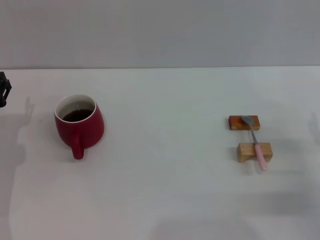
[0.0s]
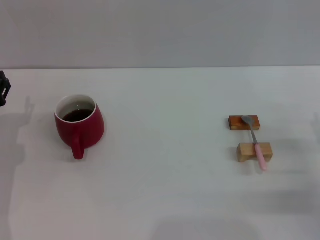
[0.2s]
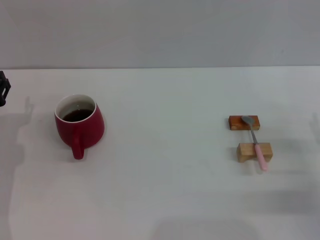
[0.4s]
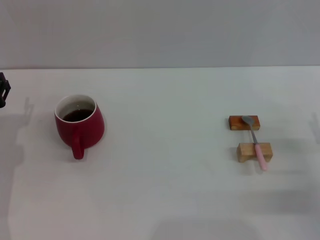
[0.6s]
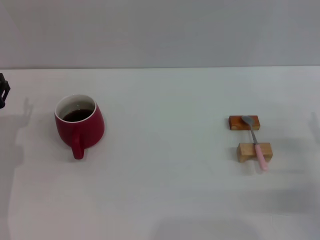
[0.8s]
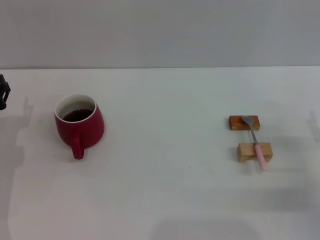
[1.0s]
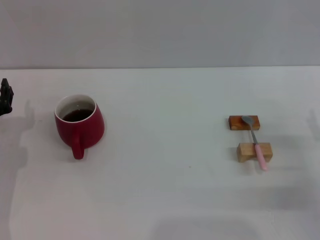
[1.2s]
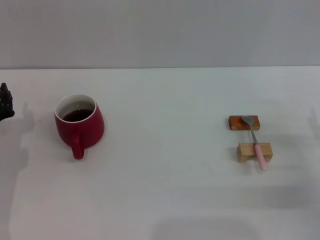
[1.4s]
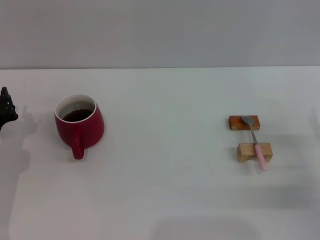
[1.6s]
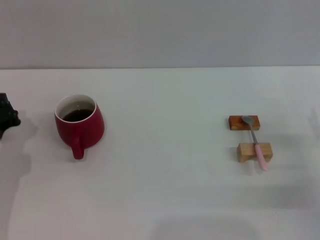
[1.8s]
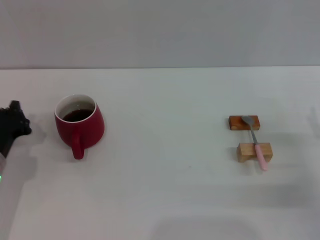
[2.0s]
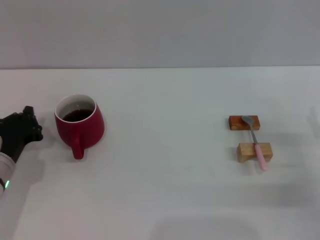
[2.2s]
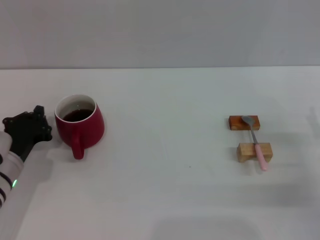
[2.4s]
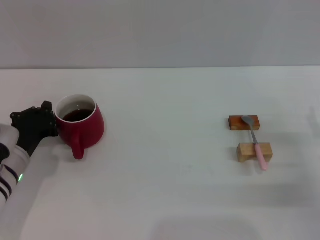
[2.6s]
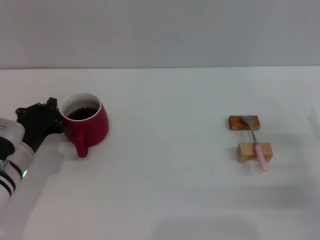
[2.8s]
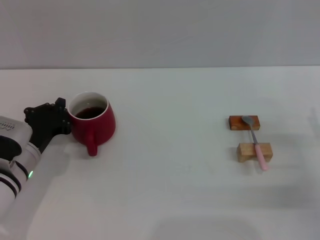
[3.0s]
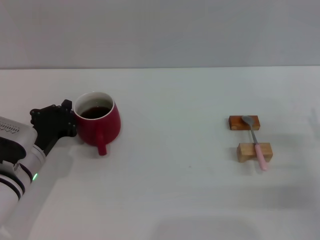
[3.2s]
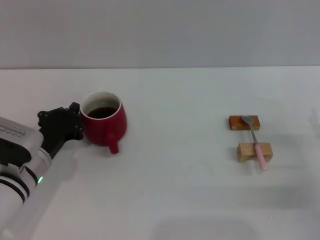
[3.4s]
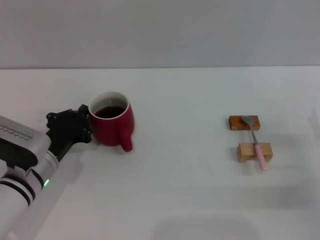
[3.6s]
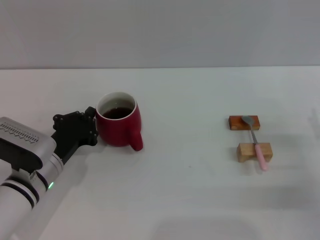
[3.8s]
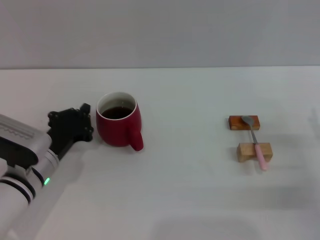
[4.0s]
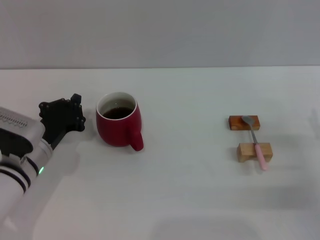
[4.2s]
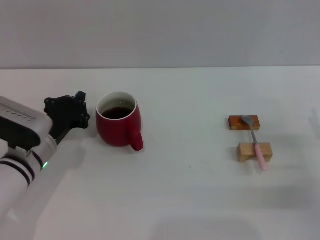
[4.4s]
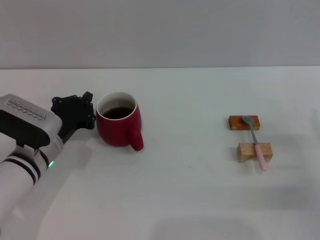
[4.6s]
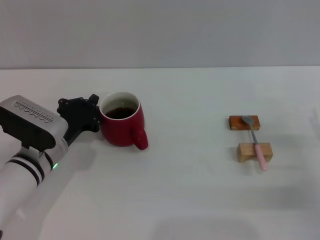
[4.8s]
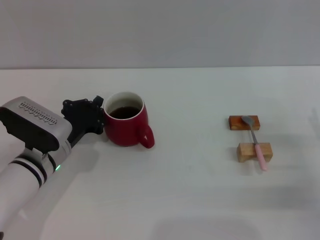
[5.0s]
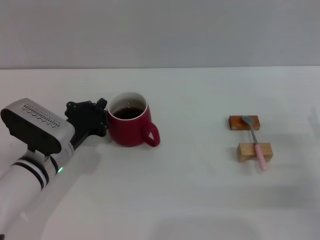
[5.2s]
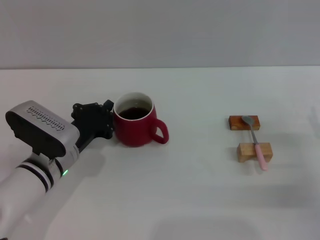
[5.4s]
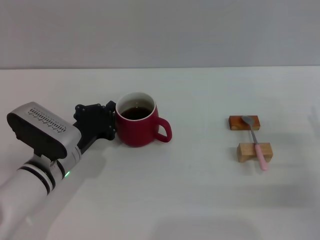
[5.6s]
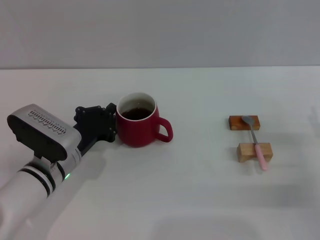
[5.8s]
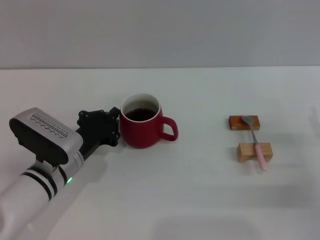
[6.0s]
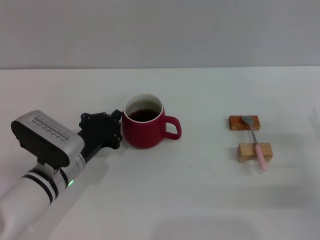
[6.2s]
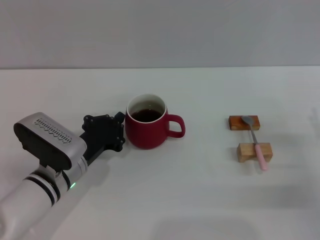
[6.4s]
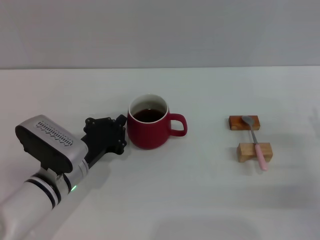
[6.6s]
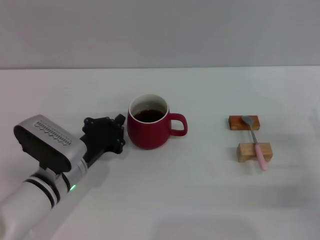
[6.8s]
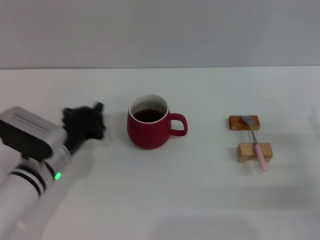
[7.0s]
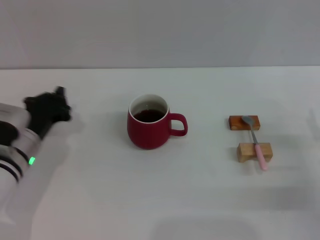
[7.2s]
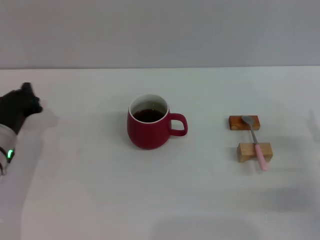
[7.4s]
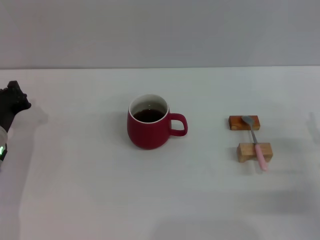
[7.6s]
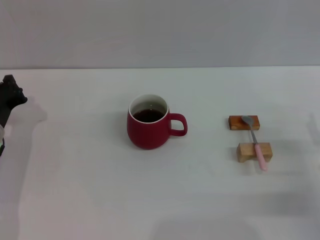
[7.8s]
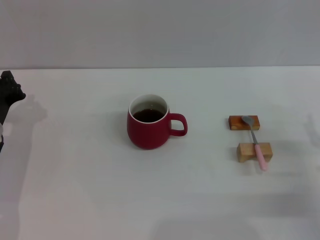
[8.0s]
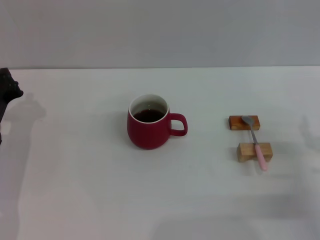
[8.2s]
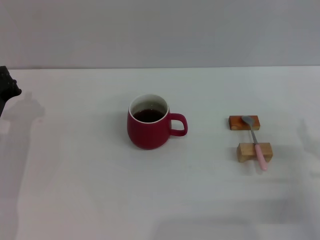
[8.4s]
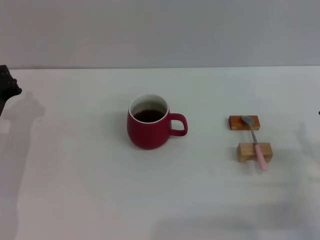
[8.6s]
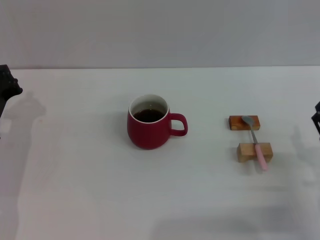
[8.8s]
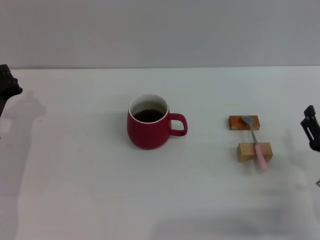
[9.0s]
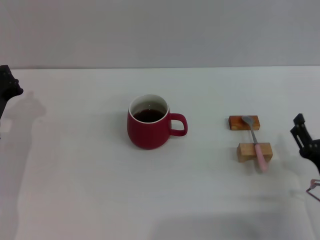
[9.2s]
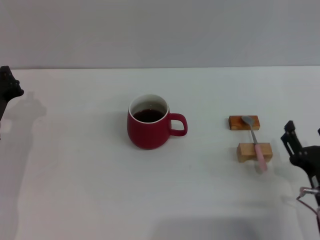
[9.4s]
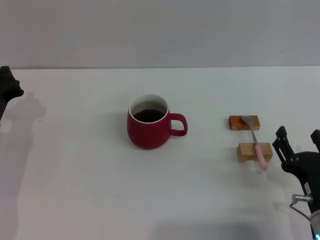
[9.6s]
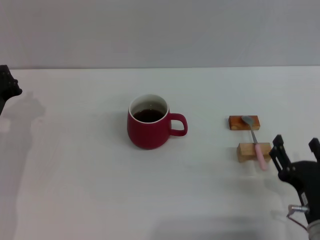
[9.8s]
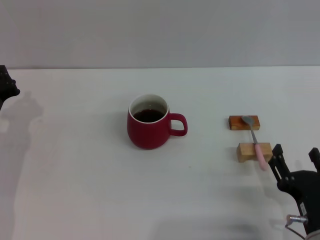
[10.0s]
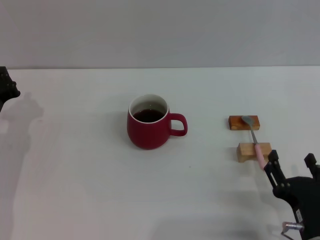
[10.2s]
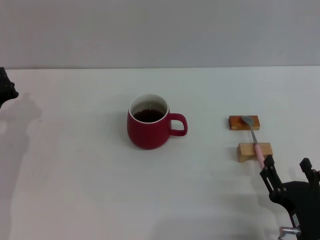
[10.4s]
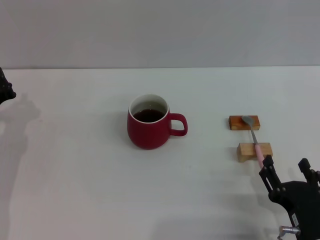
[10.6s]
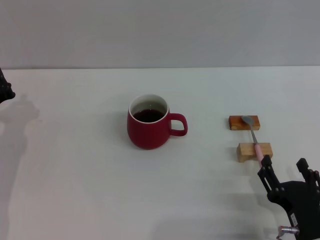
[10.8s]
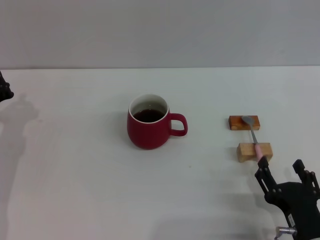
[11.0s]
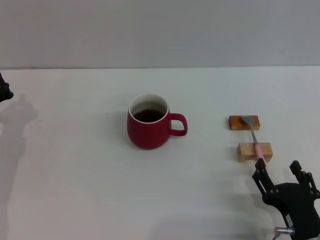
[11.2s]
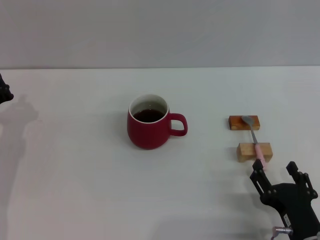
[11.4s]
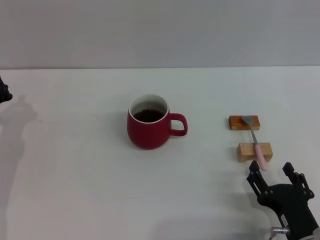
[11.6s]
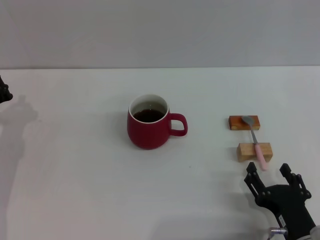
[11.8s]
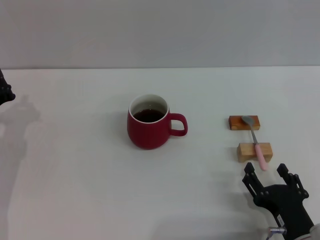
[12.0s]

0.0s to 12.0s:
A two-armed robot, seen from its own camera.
Task of the whole recording: Move the red cup to the center, lift the pink spoon, stir it three times in the cup, and put the spoon into the cup.
Step, 0.0s to 7.0s: Move the cup with coffee to the center of view with the left gripper.
0.0s to 1.6s: The left gripper closes its fingers.
1.6s to 3.0s: The left gripper moves to the right, about 5 cm, and closes up.
3.0s to 6.0s: The grippers stay close to where they were, moving slightly.
6.0s to 7.6s: The left gripper shifts roughly 10 cm to the left.
7.6s to 9.0s: The right gripper shifts by some 5 cm.
9.0s to 10.4s: The right gripper heads backward and to the left, covering roughly 10 cm.
10.4s to 12.0s: There are only small adjustments of the grippers.

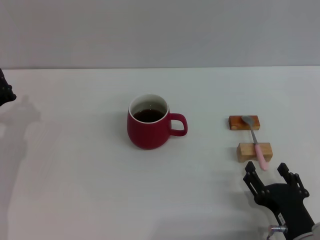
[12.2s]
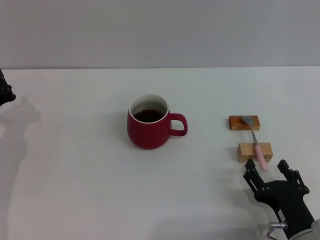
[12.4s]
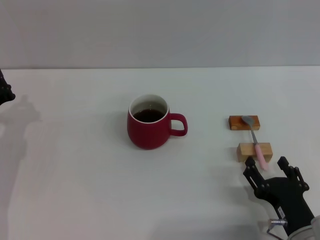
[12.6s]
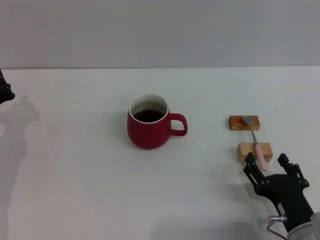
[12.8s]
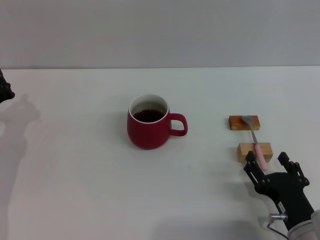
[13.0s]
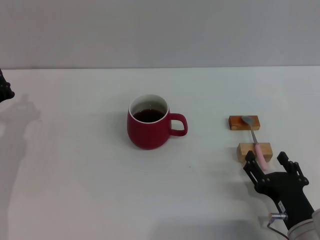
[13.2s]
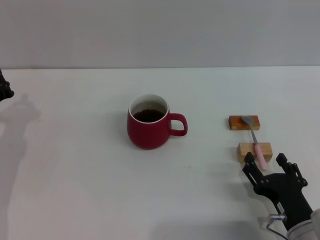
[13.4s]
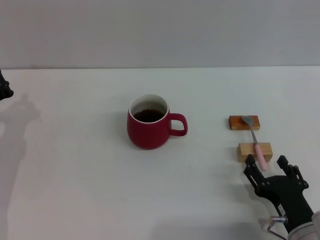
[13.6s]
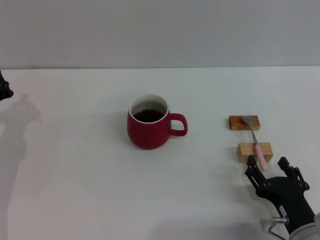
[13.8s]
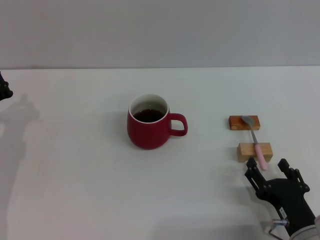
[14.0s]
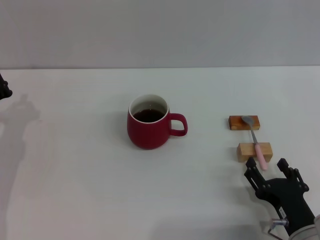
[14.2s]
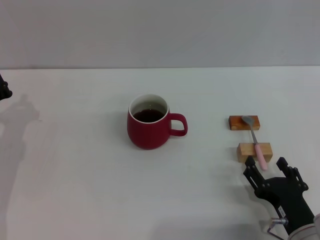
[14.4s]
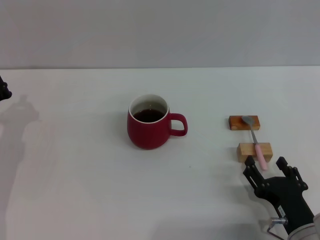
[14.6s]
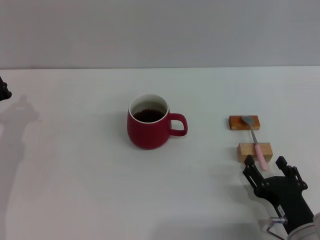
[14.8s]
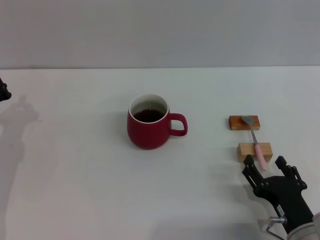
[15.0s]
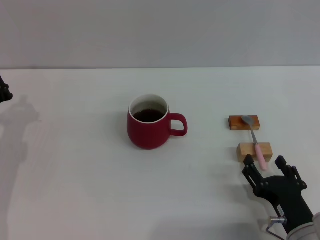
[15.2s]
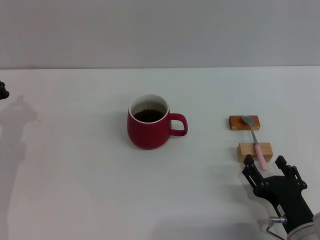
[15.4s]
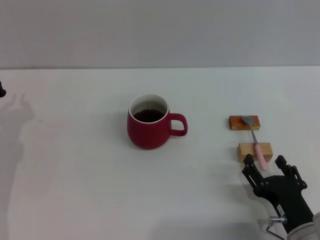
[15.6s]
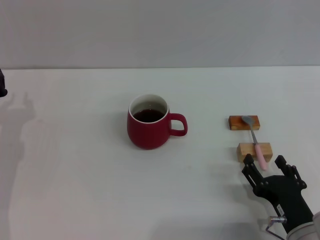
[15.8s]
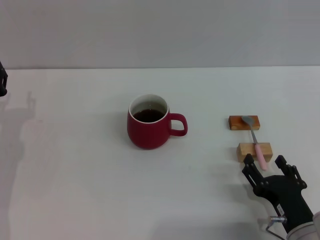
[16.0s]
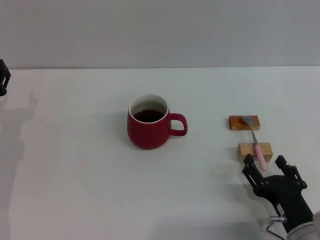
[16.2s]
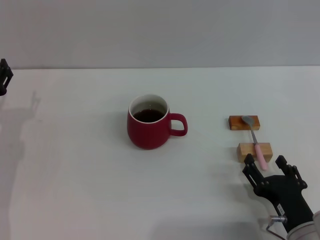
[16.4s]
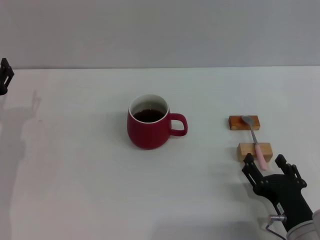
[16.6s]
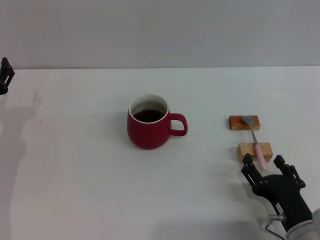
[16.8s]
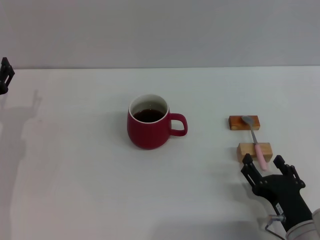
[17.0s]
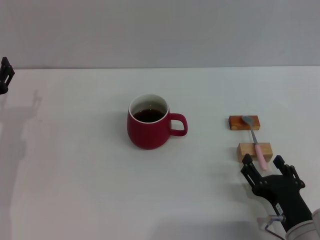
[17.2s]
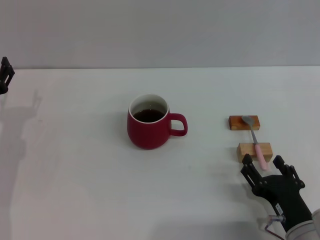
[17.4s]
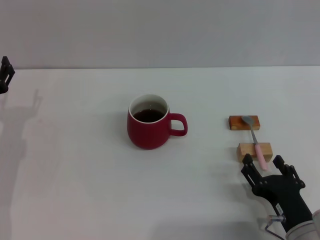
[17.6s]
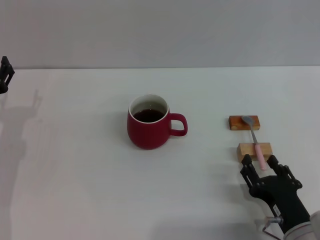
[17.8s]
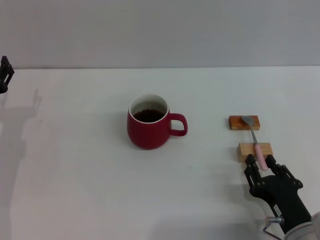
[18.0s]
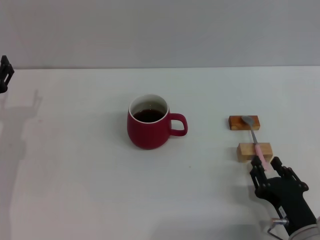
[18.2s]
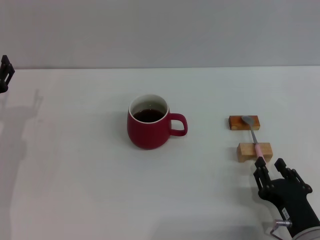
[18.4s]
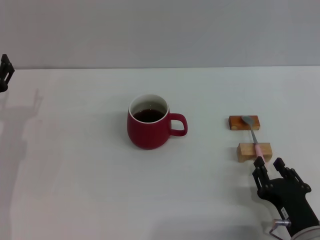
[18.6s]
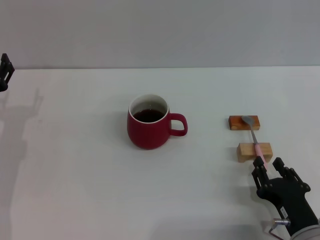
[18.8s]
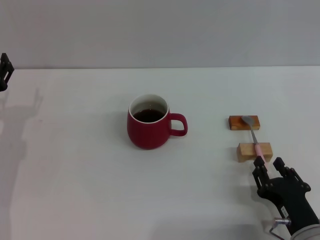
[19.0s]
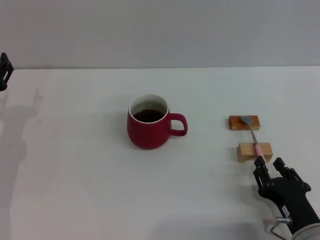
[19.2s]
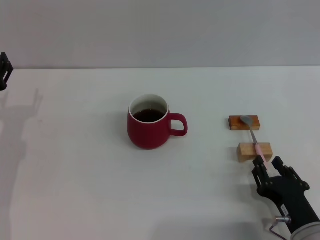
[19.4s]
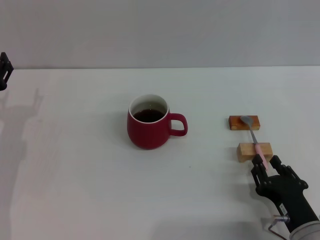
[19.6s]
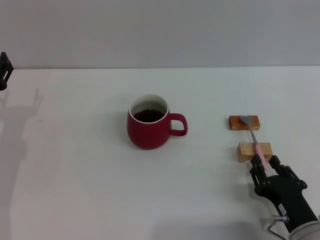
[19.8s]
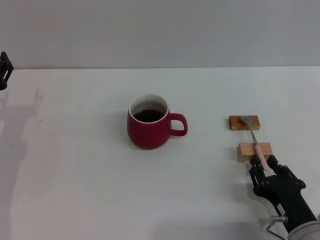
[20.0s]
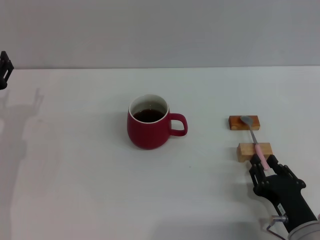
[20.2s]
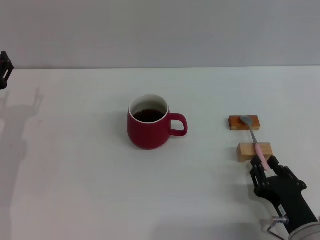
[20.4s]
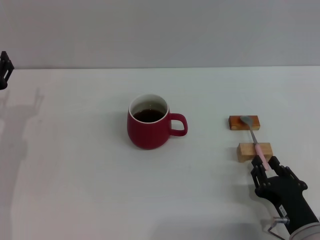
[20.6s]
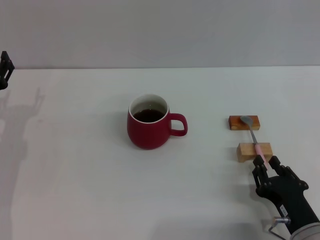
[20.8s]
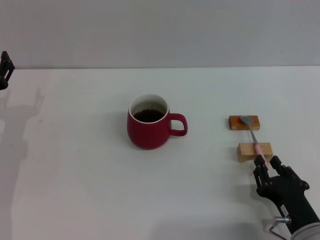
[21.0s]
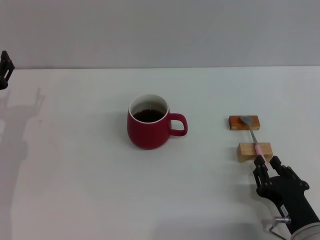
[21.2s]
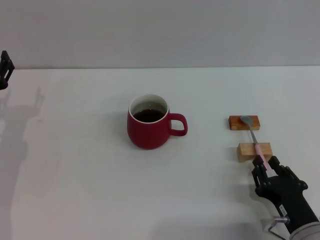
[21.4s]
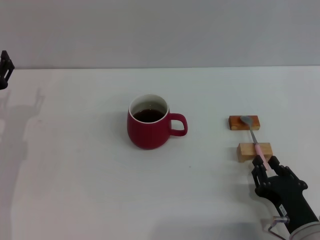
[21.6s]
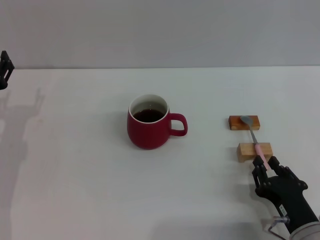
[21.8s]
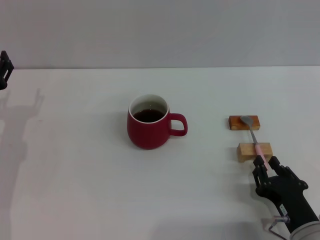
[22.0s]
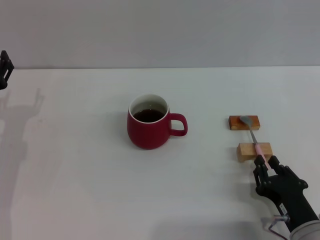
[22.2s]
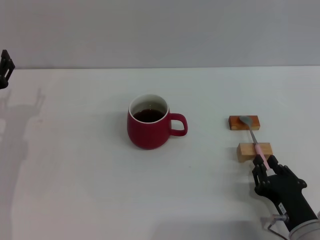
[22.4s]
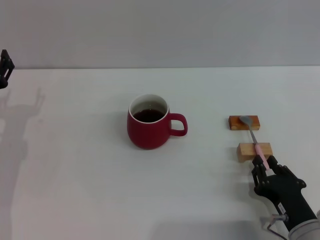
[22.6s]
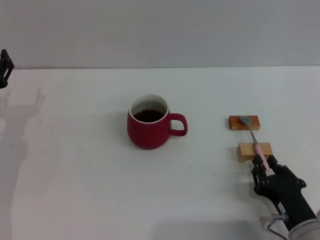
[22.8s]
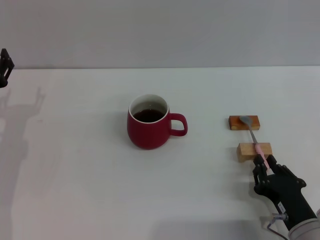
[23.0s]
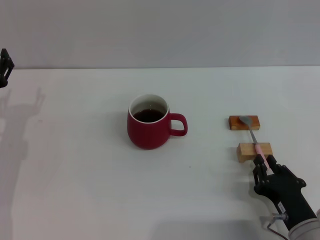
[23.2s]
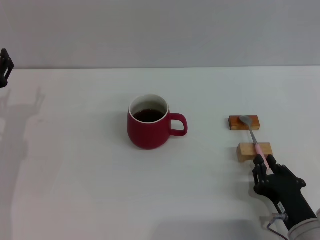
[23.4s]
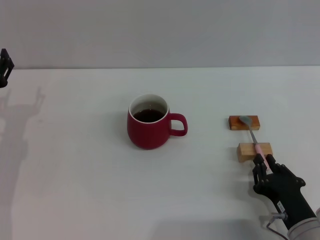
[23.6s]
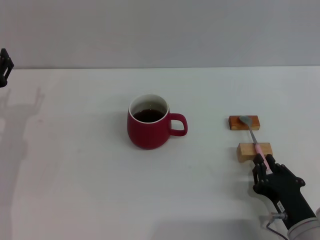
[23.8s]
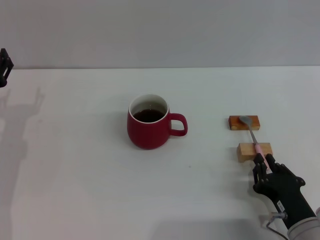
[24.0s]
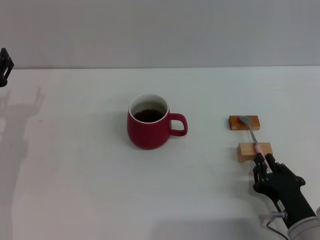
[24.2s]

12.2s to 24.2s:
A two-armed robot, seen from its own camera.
Task of the whole recording: Move the red cup to the center, lift the pink spoon, stir it three times in the cup, and put the spoon into the cup.
12.2s to 13.8s: The grippers make only small movements.
13.8s to 15.2s: Neither gripper changes place.
16.6s to 18.2s: The right gripper closes.
18.2s to 24.2s: The two grippers keep their place.
